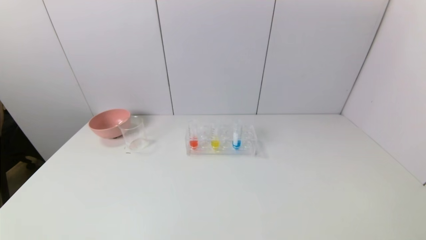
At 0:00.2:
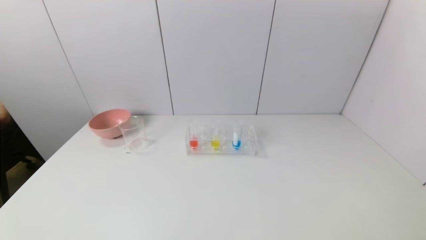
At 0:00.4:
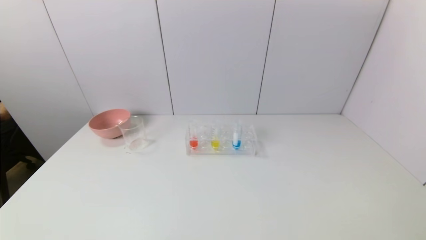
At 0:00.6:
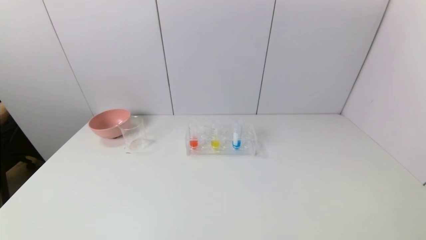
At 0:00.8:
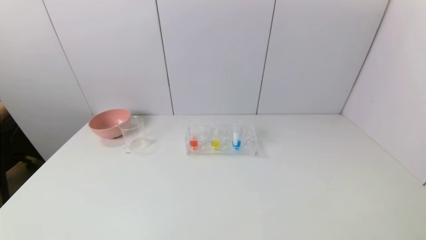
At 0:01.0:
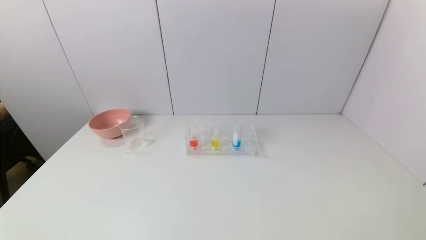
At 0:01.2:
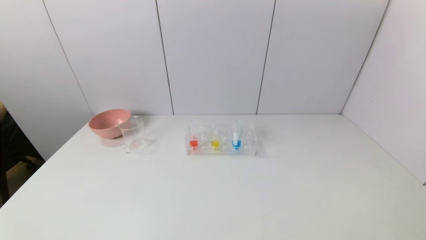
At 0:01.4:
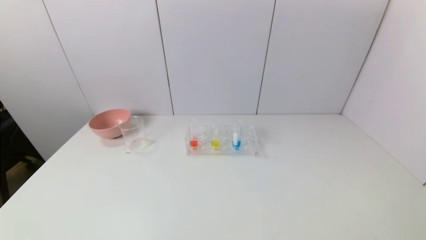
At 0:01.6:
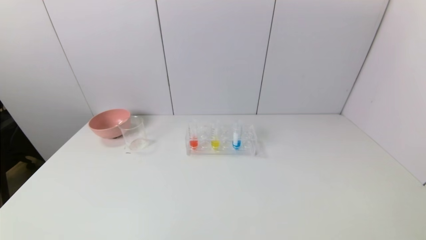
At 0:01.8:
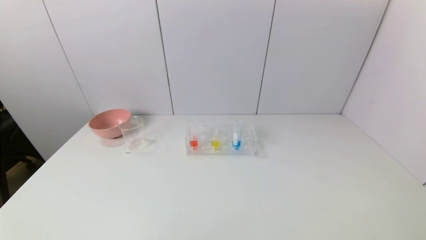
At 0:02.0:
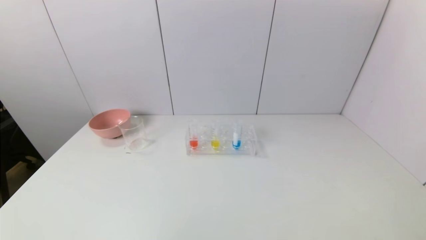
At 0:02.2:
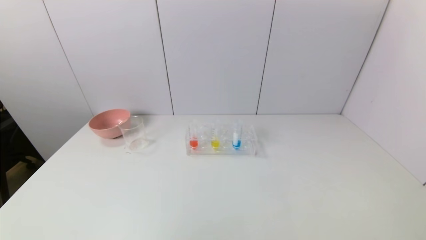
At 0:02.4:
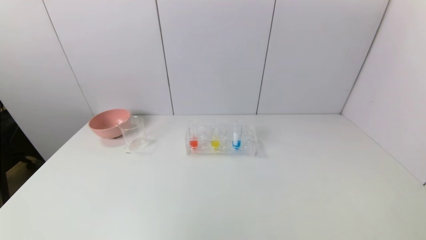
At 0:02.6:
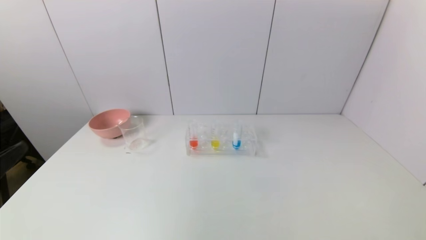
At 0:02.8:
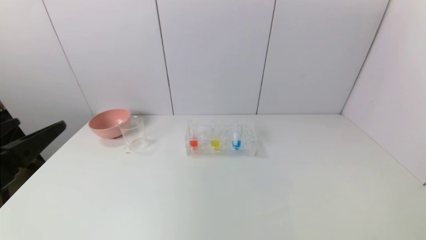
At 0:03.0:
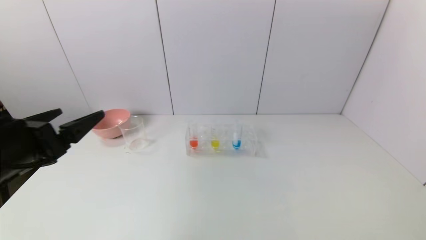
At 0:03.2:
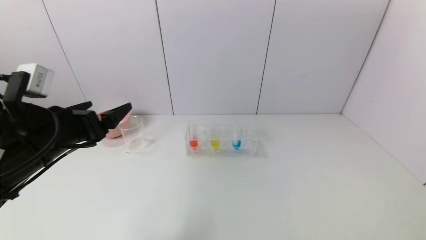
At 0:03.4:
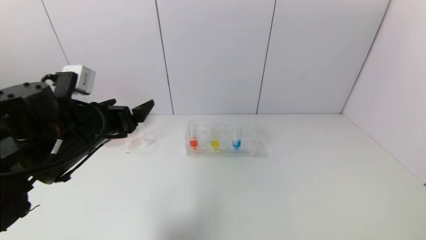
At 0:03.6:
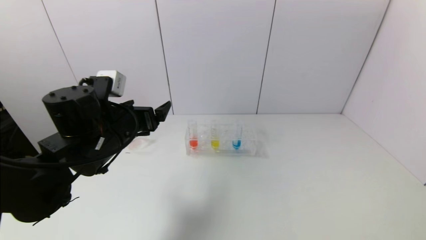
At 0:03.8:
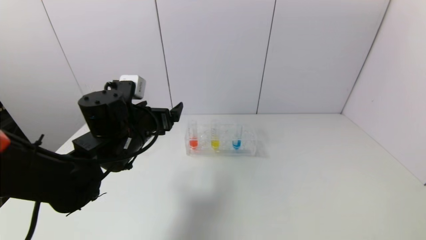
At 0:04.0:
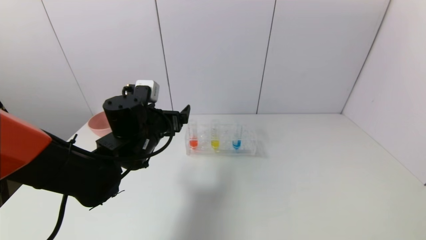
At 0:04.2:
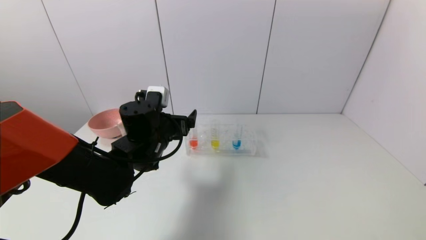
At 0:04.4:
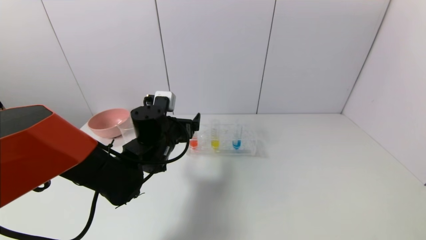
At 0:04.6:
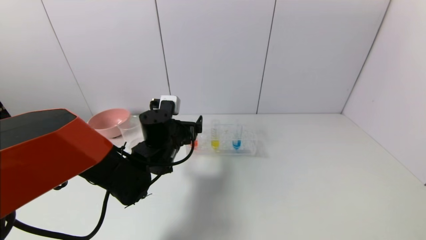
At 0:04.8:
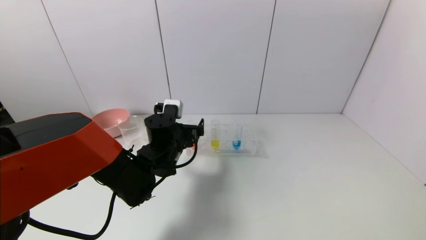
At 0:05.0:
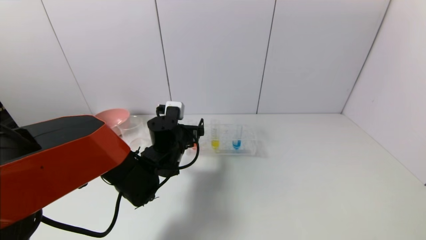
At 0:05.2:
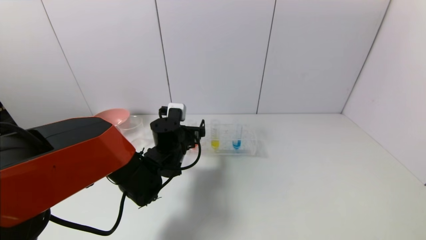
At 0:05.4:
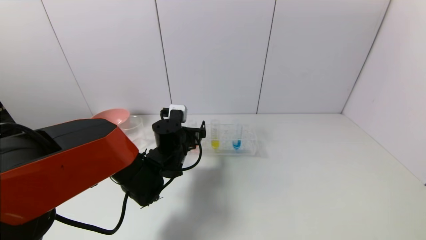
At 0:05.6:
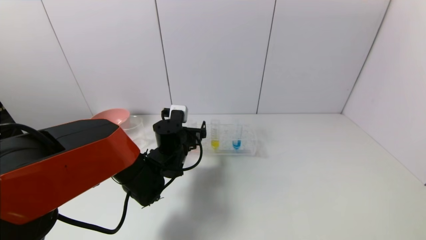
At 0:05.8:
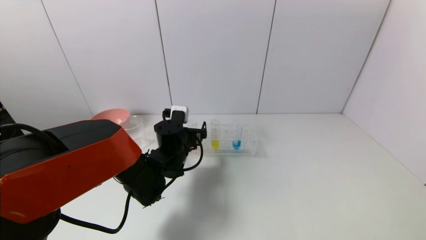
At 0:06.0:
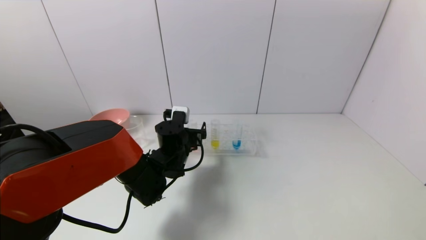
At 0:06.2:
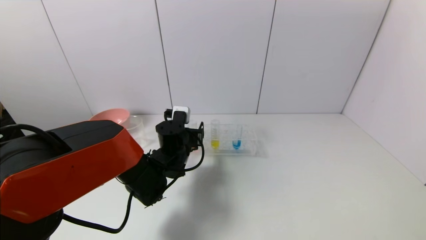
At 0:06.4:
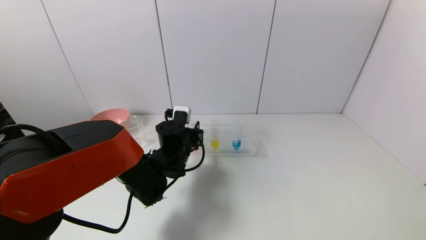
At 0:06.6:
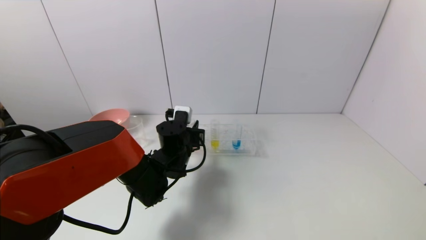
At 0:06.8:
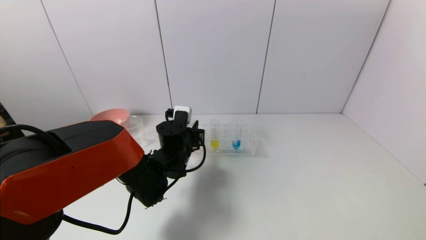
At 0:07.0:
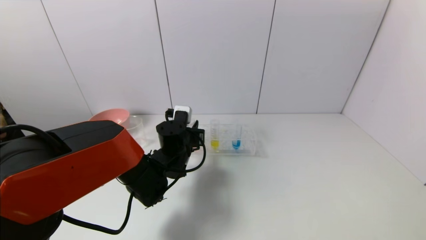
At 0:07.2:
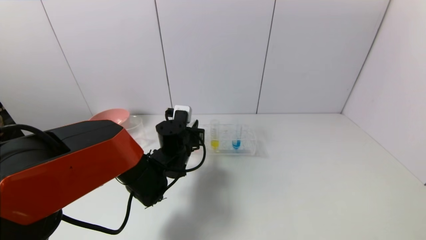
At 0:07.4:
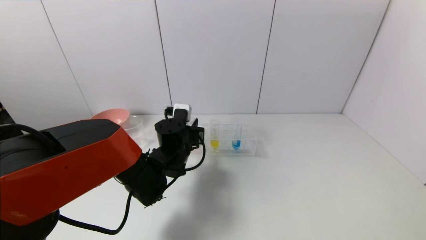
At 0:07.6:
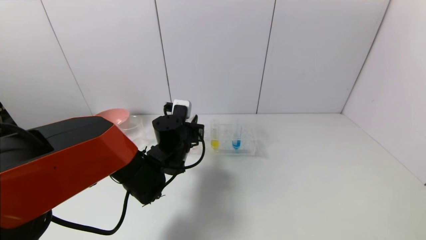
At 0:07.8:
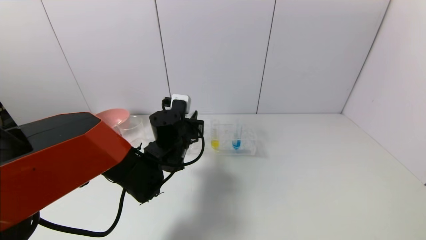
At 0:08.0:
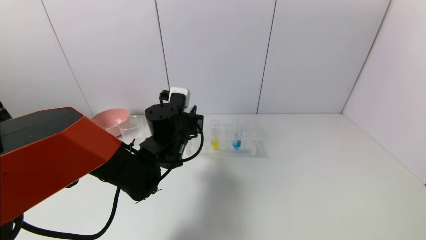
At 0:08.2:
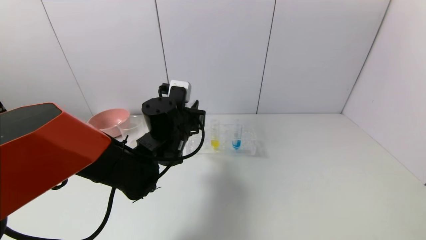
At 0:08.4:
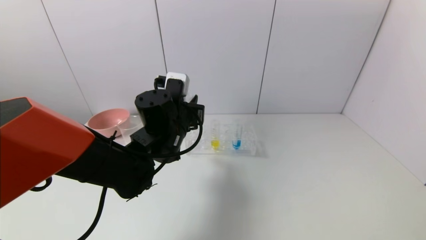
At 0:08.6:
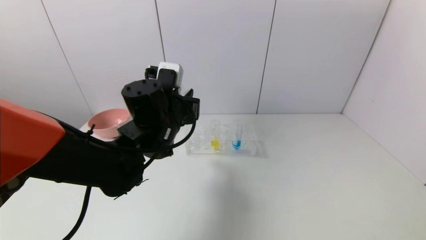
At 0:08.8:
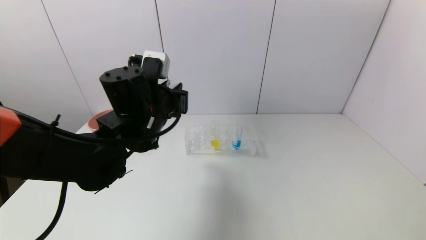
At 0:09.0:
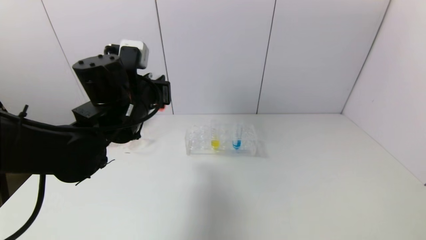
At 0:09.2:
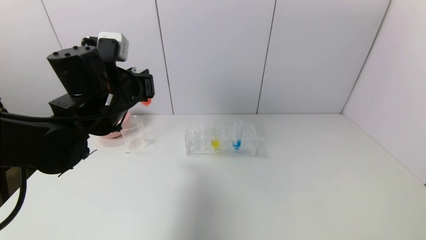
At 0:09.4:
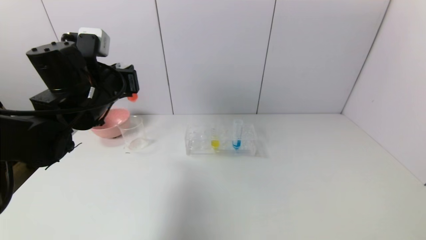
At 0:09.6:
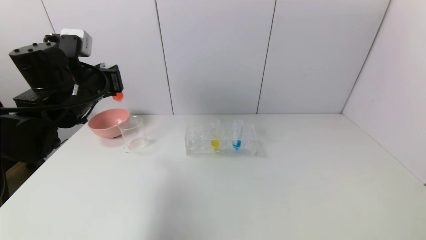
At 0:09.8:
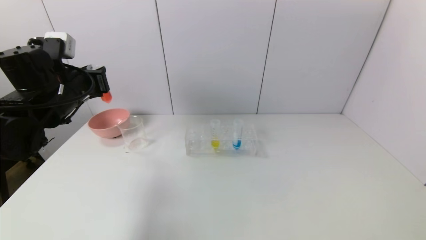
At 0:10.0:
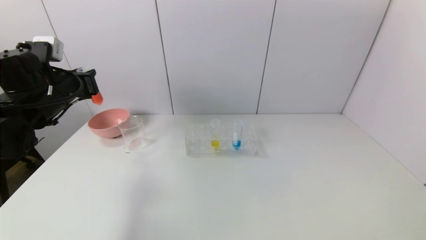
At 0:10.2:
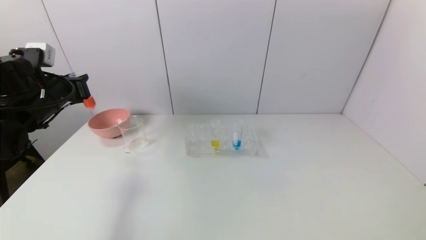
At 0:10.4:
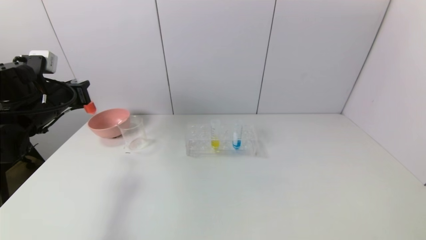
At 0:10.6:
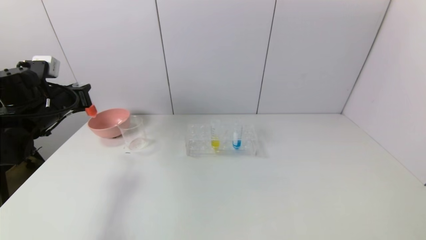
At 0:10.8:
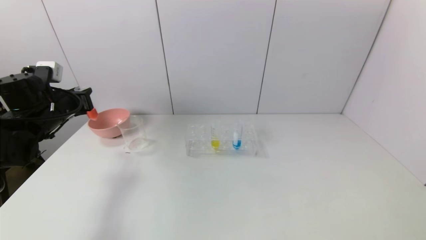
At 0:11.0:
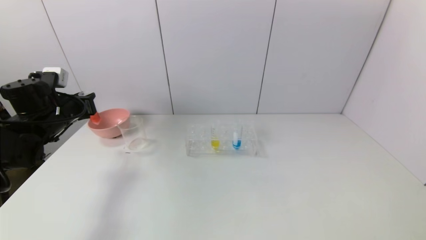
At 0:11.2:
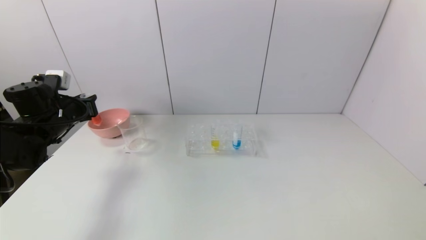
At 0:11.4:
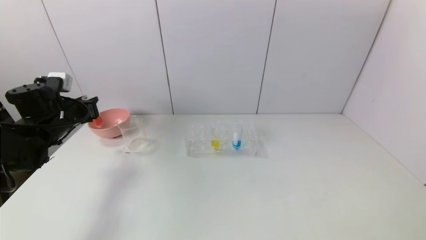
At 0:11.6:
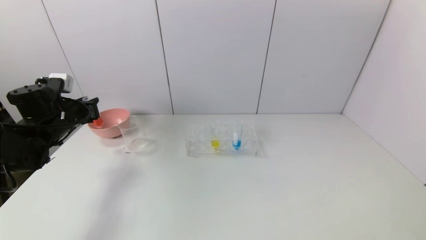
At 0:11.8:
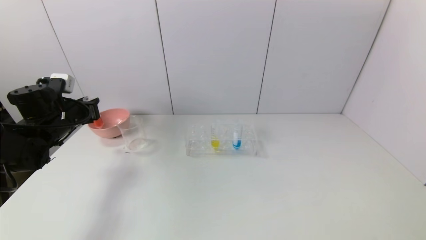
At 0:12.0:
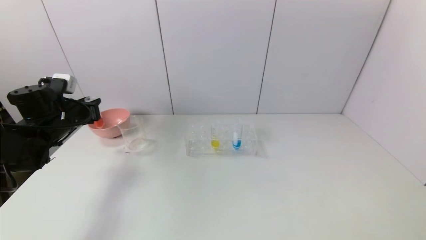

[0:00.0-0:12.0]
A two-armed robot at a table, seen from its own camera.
Task of the whole recording: pick up the test tube with yellow pigment and the test tube with red pigment by grippers and pour them into the beaker.
Step, 0:00.0 to 0:06.8: Grasp the red reagent with the left gripper.
0:01.6 to 0:03.0: The left gripper heads forward and upward, covering about 25 cm.
0:03.0 to 0:04.4: The left gripper moves to the right, forward and downward, some 25 cm.
0:04.4 to 0:06.0: The left gripper travels downward by roughly 5 cm.
0:06.0 to 0:07.6: The left gripper closes its fingers.
0:07.6 to 0:09.0: The left gripper travels upward and to the left by approximately 15 cm.
0:09.0 to 0:10.4: The left gripper heads to the left, covering some 20 cm.
0:10.4 to 0:12.0: The left gripper goes some 5 cm downward.

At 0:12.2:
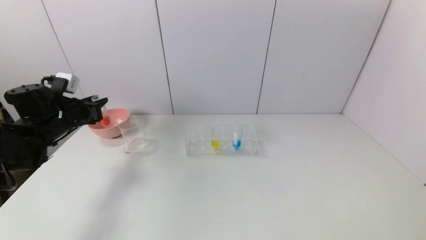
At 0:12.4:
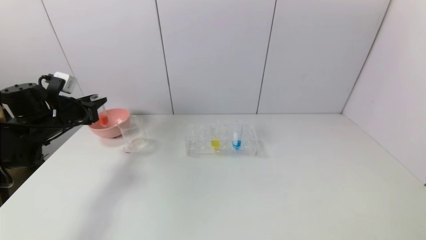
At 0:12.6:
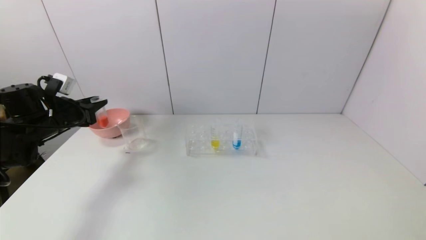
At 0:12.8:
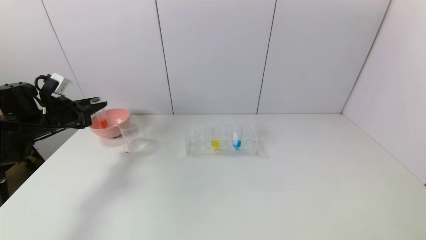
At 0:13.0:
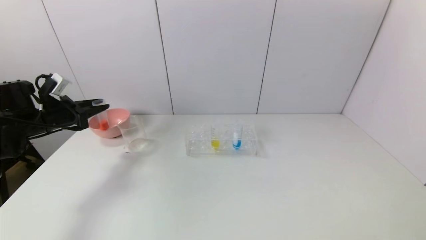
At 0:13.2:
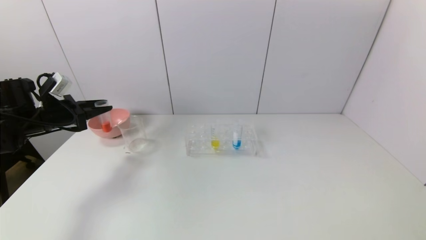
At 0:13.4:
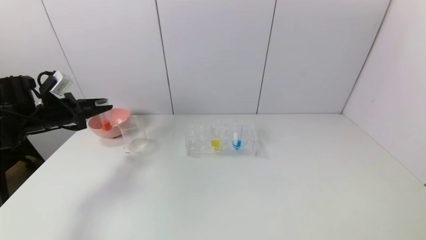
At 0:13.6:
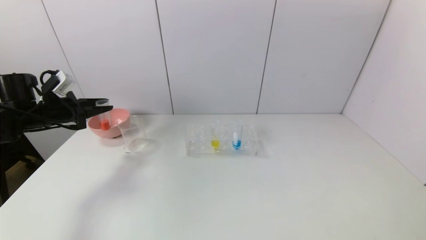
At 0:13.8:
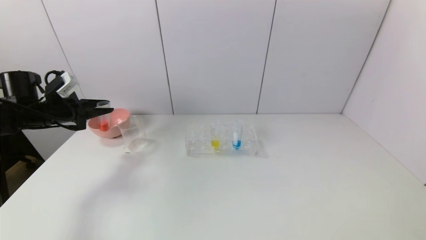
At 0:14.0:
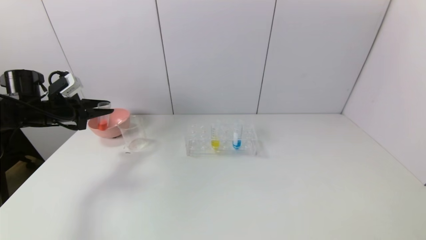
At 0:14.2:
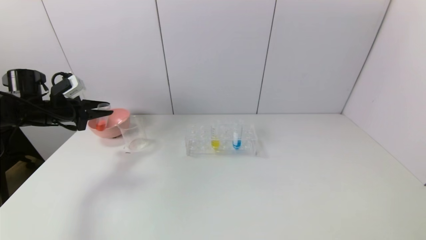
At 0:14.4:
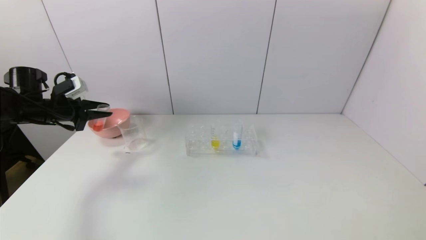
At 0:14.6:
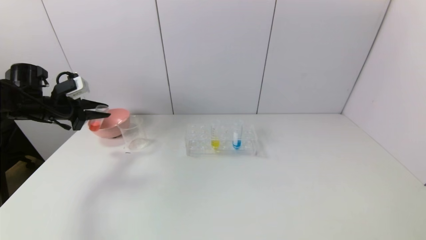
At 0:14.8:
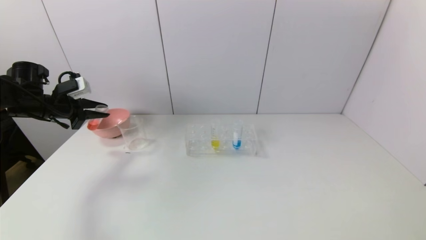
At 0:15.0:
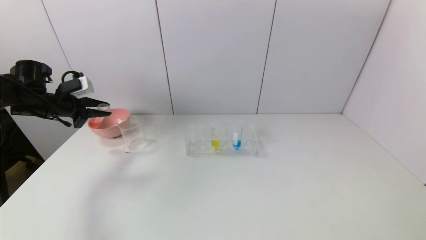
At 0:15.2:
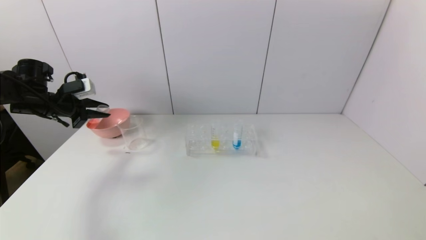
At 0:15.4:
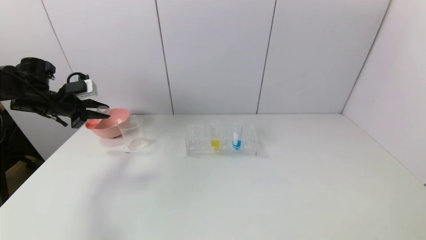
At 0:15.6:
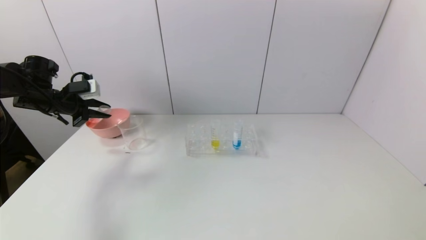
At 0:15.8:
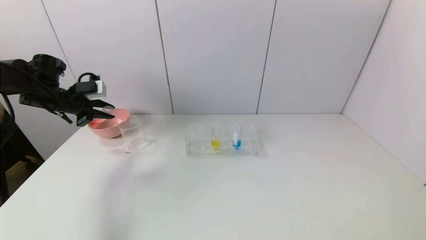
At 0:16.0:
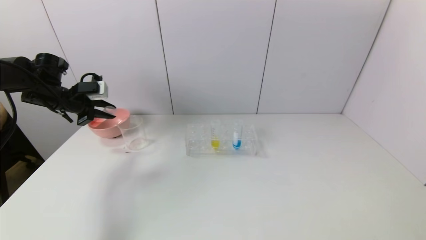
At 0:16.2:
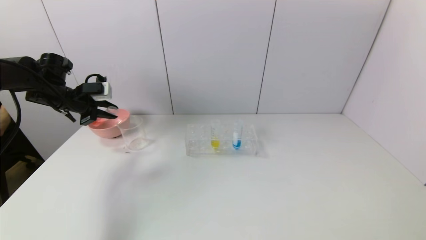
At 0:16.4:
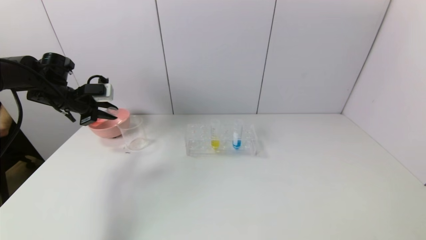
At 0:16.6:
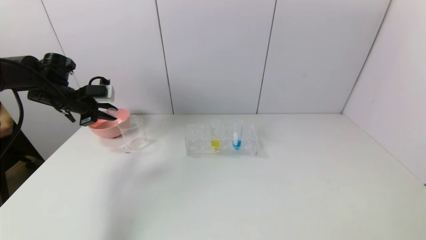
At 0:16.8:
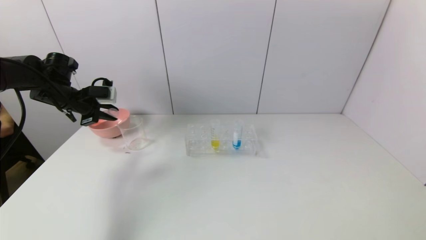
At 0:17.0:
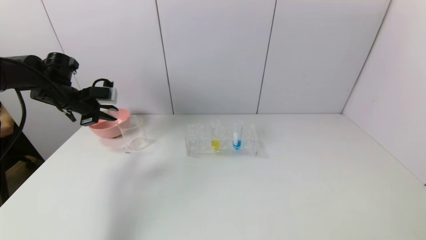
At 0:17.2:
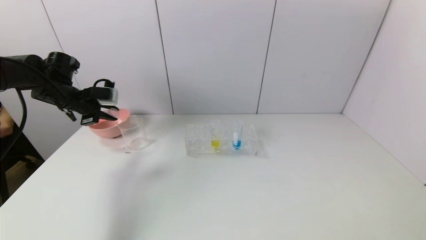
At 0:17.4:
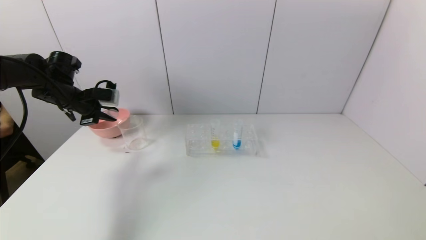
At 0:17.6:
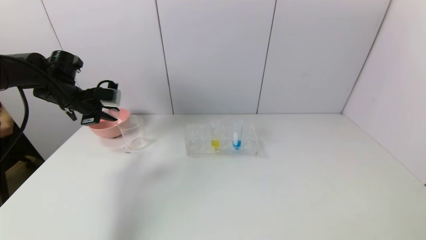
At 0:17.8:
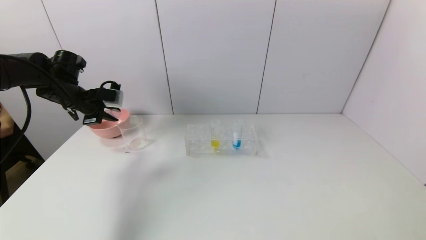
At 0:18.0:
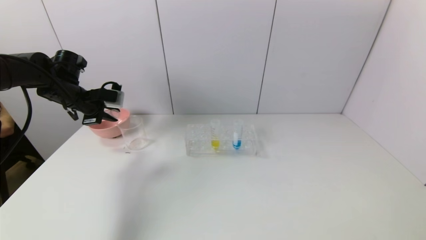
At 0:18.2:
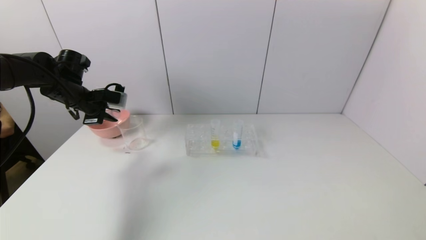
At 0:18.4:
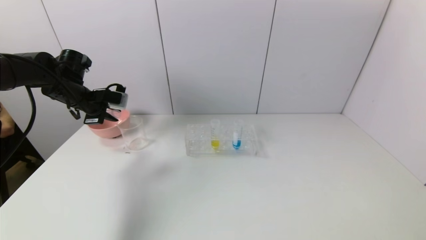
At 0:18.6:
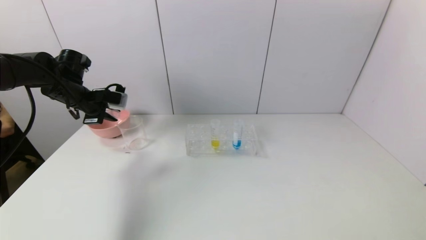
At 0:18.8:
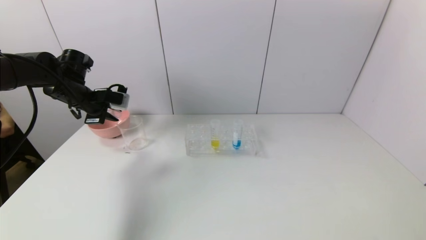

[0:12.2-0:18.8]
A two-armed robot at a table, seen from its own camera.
Task of the whole recording: pick up the test tube with yellow pigment and the test tube with red pigment by grippers and pour them into the beaker.
0:15.4 to 0:17.2: There are only small adjustments of the grippers.
0:17.2 to 0:18.8: There are only small adjustments of the grippers.
